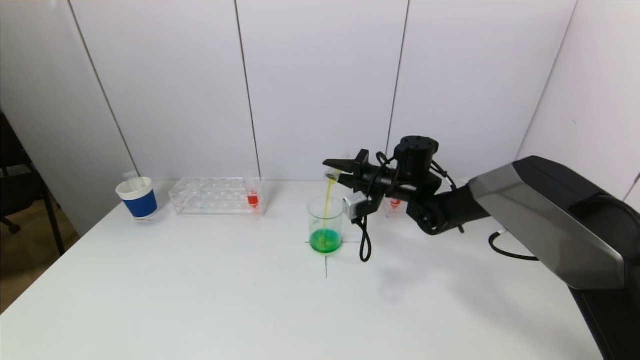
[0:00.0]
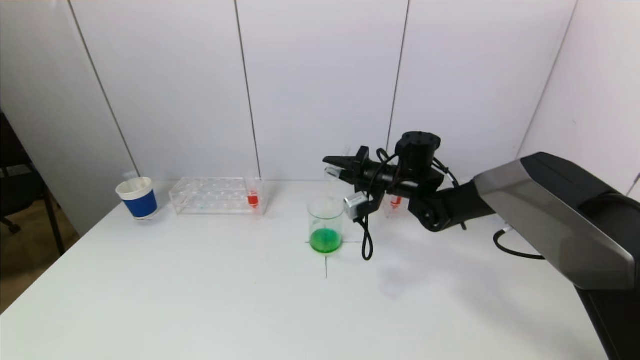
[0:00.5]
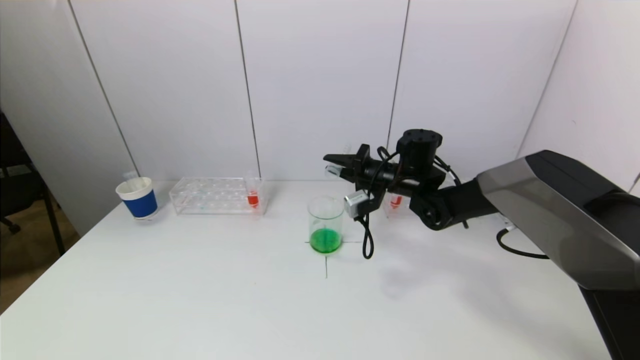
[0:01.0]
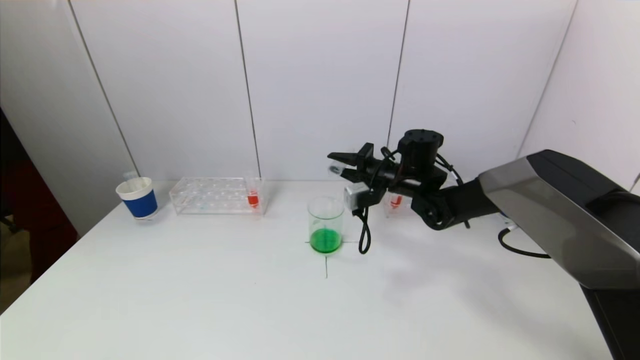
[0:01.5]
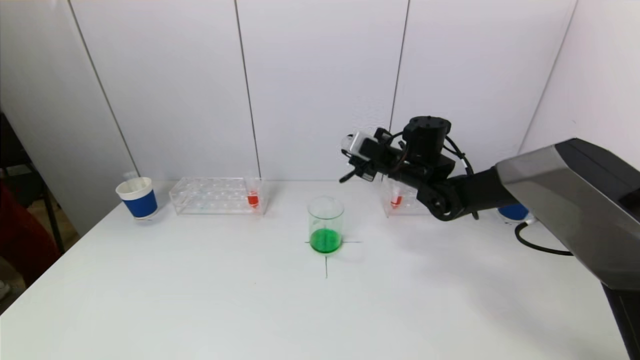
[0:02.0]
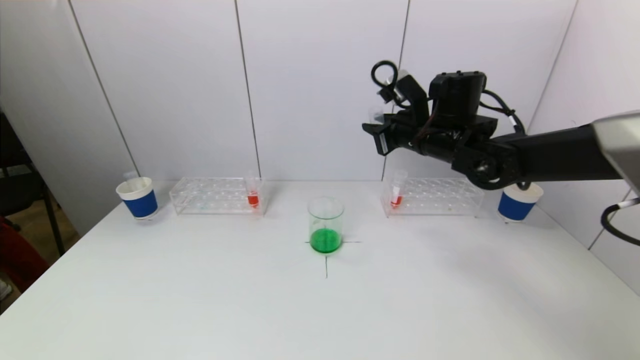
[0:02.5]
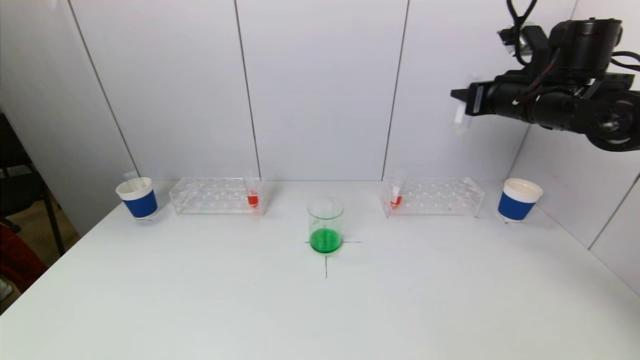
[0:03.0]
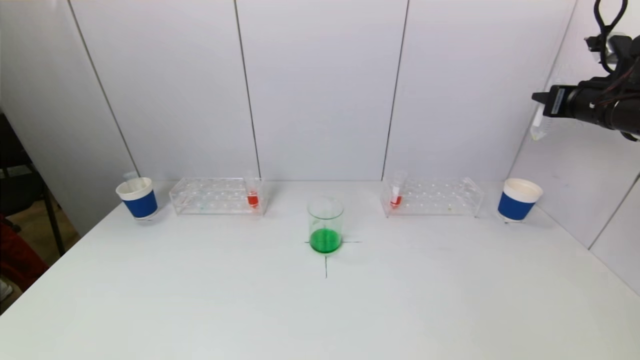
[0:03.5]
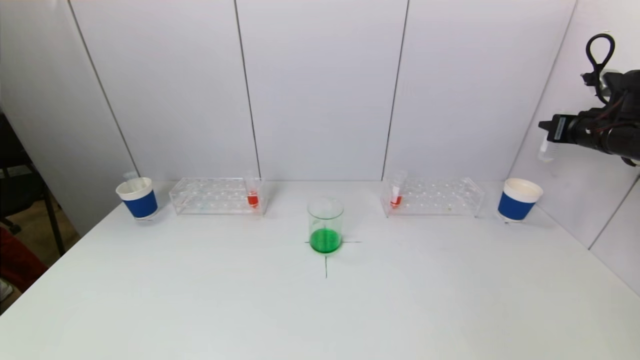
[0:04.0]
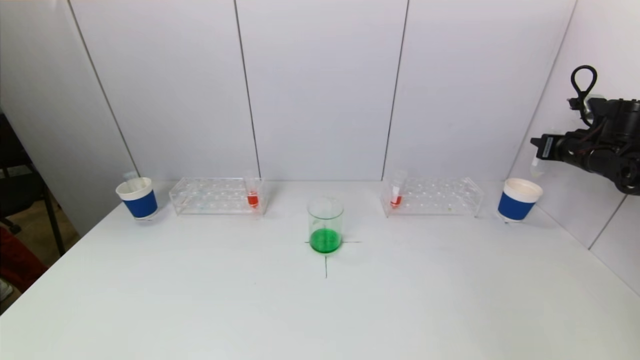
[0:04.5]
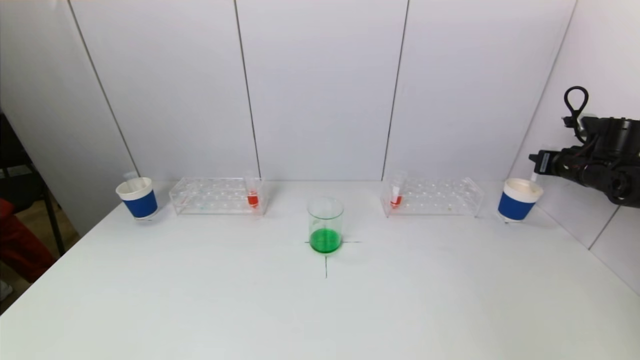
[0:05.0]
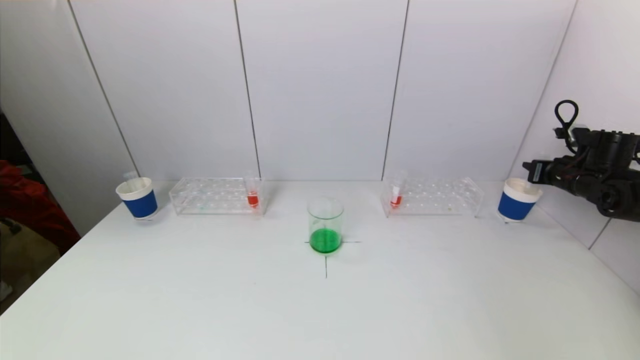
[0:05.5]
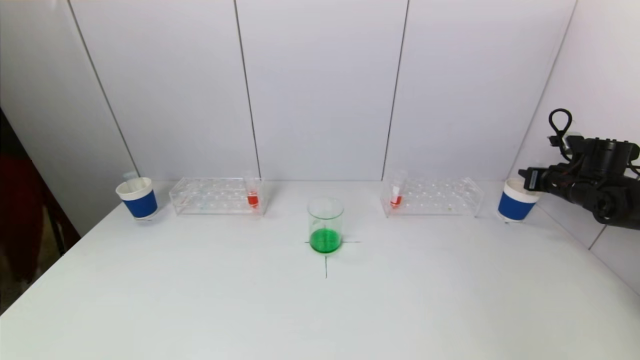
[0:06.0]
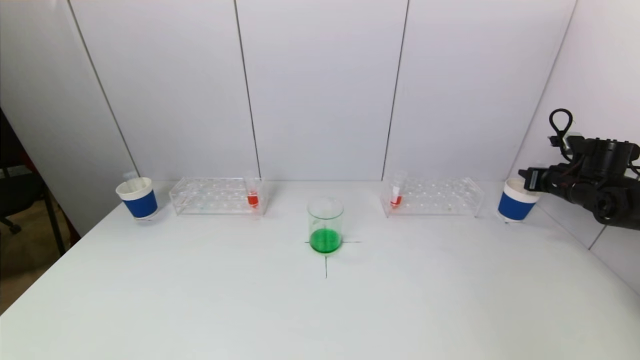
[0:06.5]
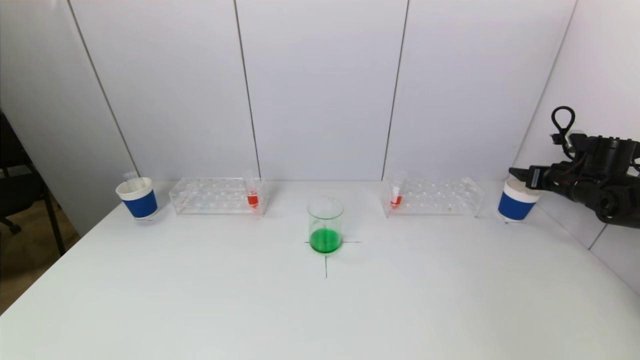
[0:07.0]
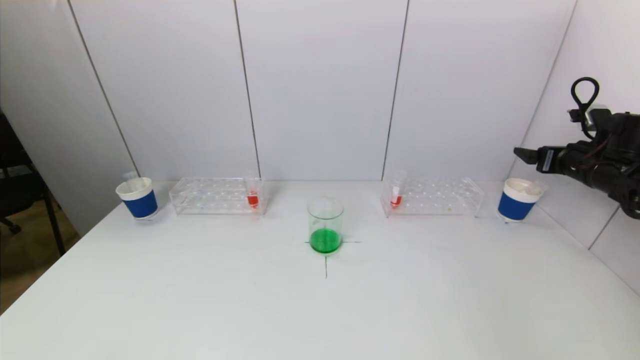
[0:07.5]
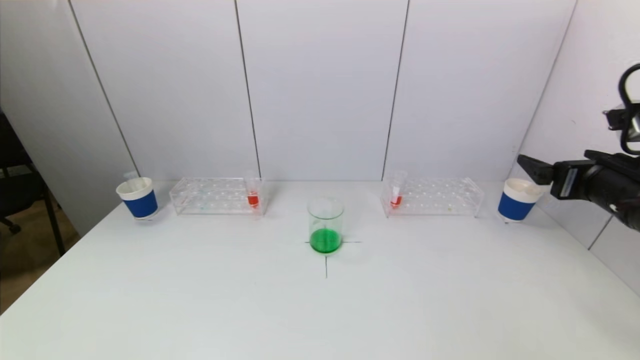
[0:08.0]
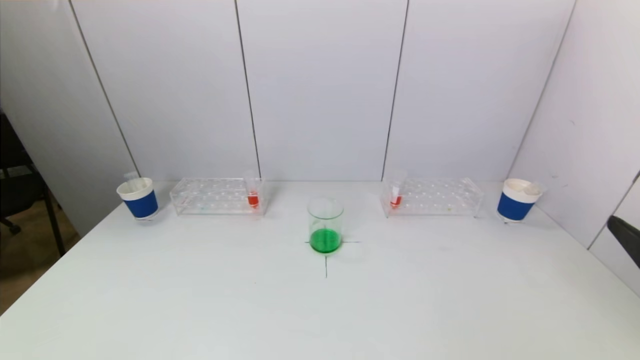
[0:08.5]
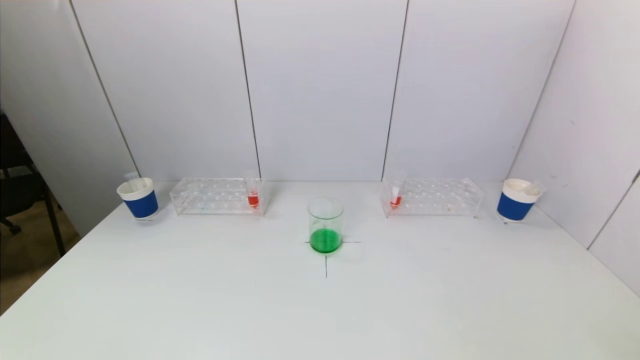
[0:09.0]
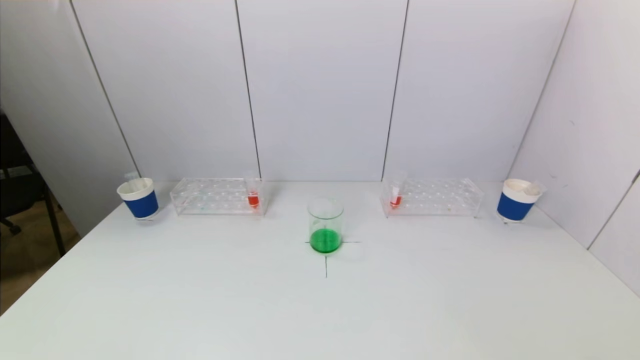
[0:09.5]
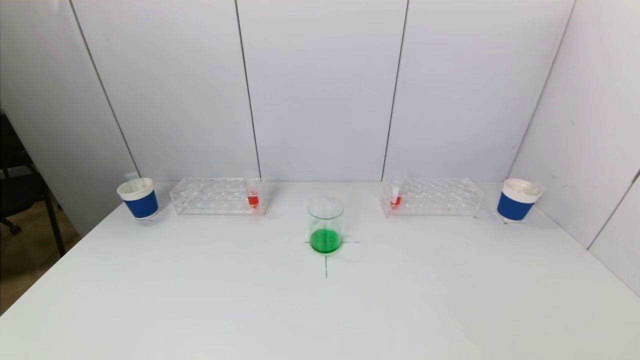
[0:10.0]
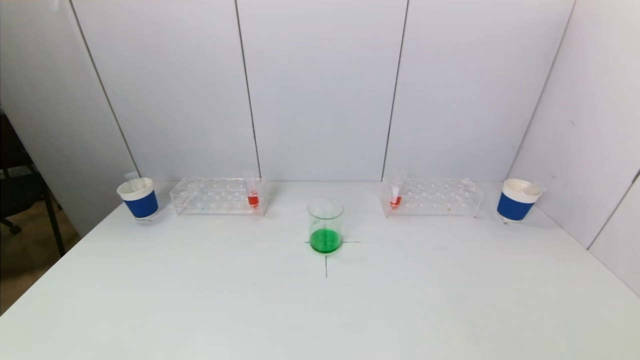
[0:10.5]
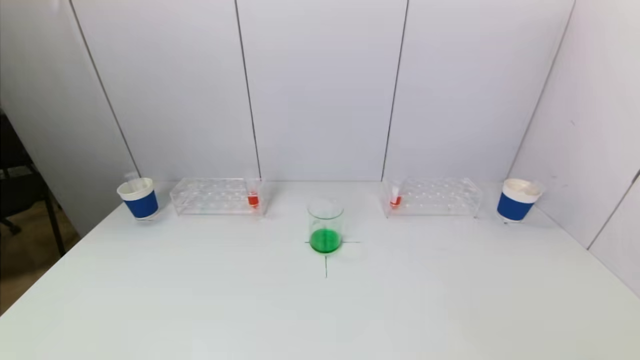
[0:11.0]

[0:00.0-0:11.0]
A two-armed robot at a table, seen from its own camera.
Task of the whole recording: pick up a test tube with pigment on left test tube rack and a test tube with pigment on right test tube rack by grippers and pour them into the beaker.
Step, 0:01.0 to 0:07.0: Place the test tube into the paper cup with the right gripper.
0:02.0 to 0:03.5: The right gripper travels to the right and upward by roughly 30 cm.
0:03.5 to 0:05.5: The right gripper is displaced downward and to the right by some 15 cm.
0:05.5 to 0:07.5: The right gripper is displaced upward by approximately 5 cm, and opens its fingers.
0:07.5 to 0:09.0: The right gripper goes approximately 40 cm backward.
